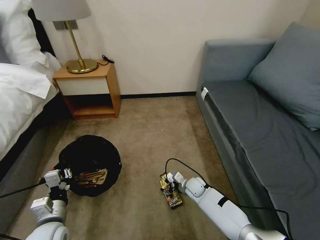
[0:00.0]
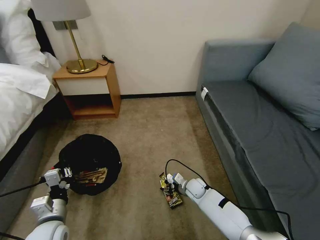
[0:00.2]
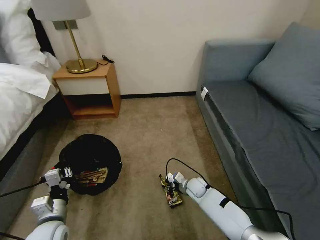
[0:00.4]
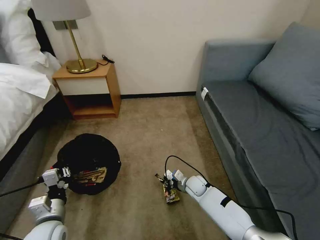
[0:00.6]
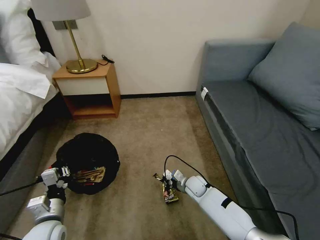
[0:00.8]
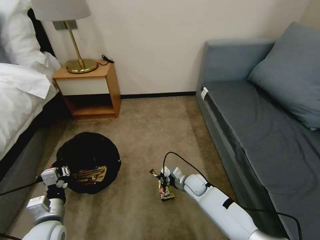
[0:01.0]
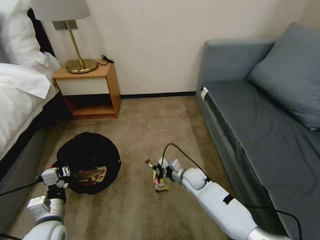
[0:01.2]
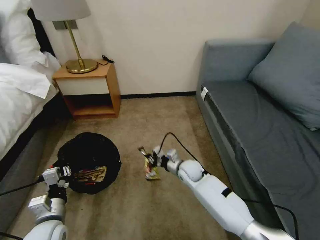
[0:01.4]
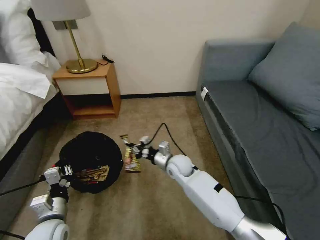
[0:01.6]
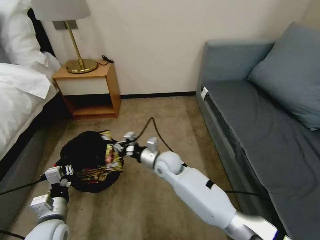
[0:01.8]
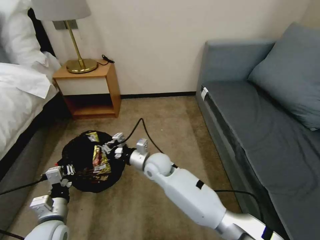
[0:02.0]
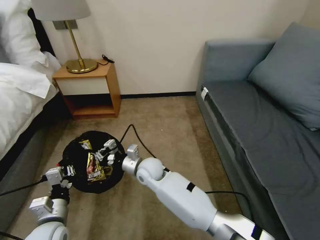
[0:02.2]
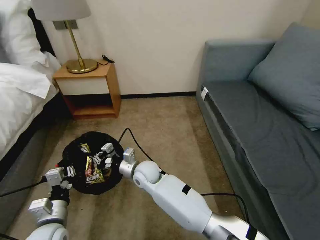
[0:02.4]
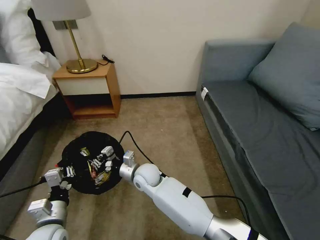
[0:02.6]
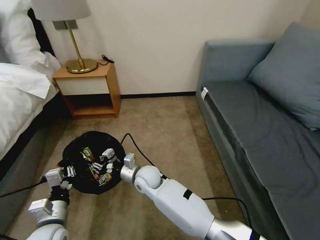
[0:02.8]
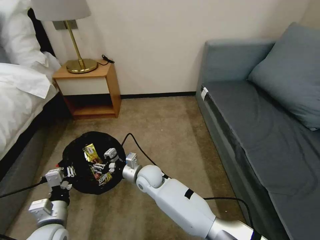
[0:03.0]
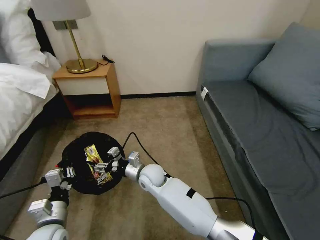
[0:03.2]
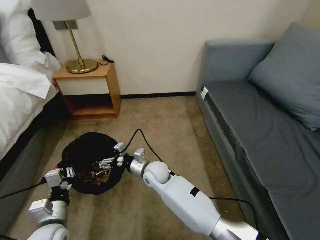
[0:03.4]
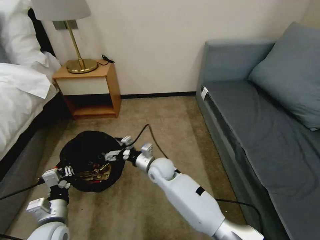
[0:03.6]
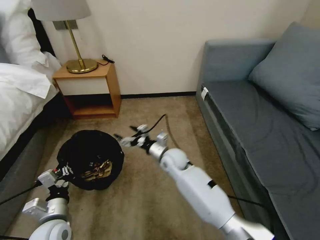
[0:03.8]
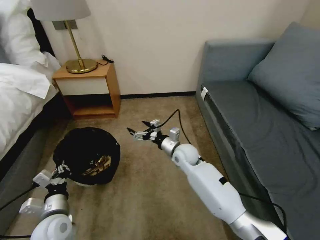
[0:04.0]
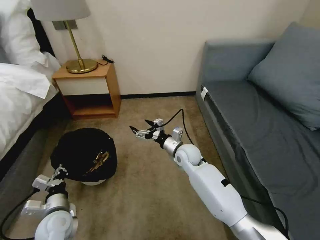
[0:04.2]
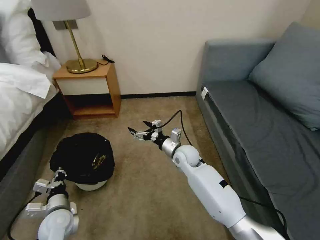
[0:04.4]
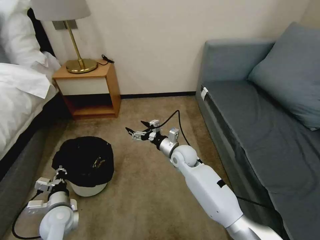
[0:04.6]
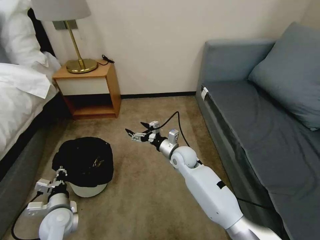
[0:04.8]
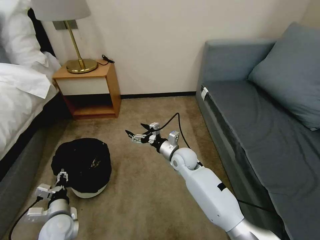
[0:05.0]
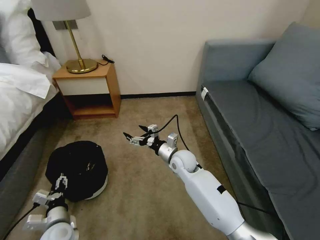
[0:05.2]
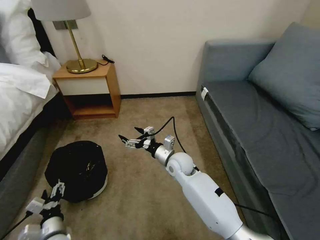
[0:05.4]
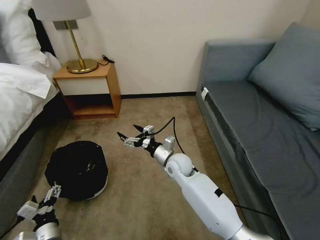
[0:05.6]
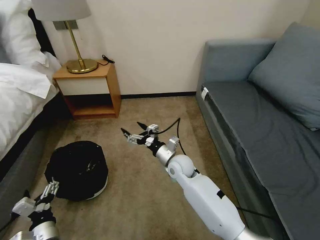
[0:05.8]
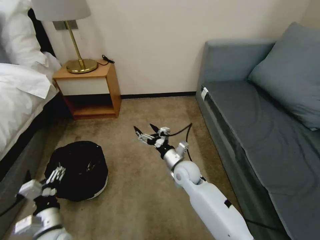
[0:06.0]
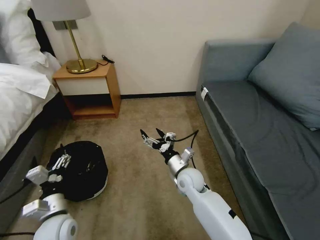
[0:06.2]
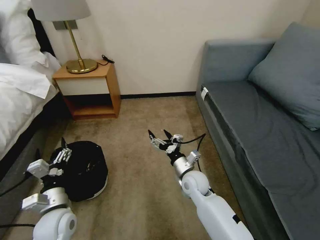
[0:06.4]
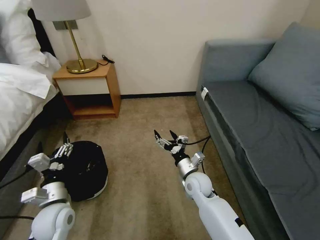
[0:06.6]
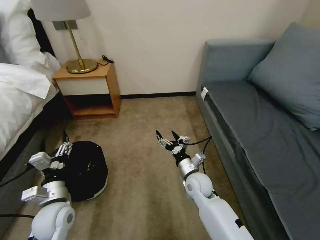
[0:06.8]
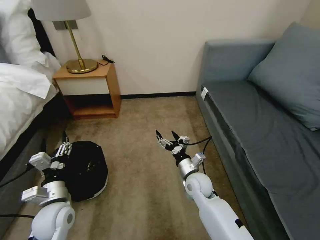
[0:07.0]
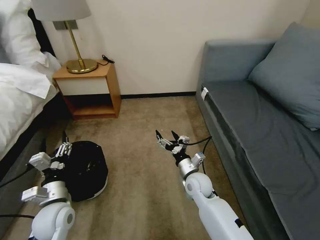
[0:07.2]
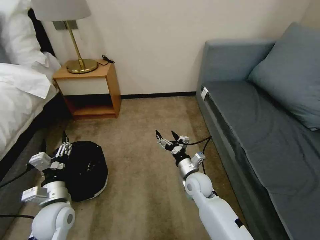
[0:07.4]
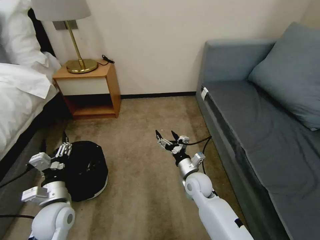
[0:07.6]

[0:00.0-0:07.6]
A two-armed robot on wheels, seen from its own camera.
Task of the whole recording: Pick up the trash bin, then pick up the garbage on the floor and place it into the trash bin.
0:00.0 to 0:01.6: The right gripper is displaced upward and to the left by approximately 20 cm, and closes up.
0:01.6 to 0:03.0: The right gripper travels to the left by about 10 cm, and opens up.
0:03.0 to 0:04.6: The left gripper moves downward and forward, roughly 10 cm. The right gripper shifts about 15 cm to the right and forward, and opens its fingers.
0:04.6 to 0:06.0: Both grippers travel together backward, about 5 cm. The left gripper opens up.
0:06.0 to 0:07.6: The left gripper is displaced forward by about 5 cm. The right gripper ends up approximately 5 cm from where it was.

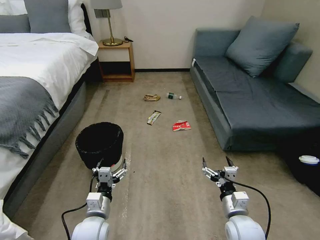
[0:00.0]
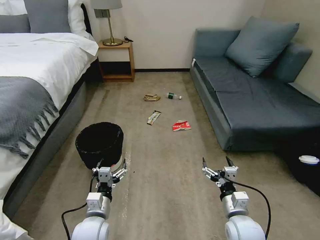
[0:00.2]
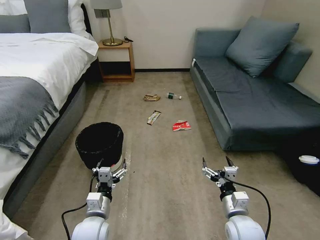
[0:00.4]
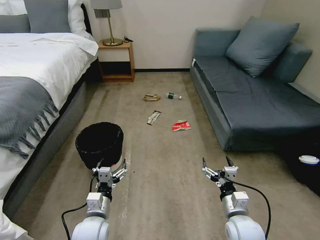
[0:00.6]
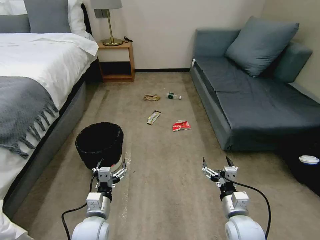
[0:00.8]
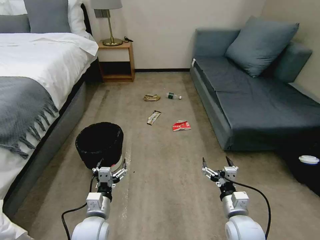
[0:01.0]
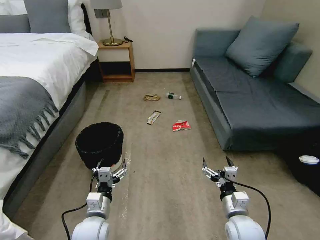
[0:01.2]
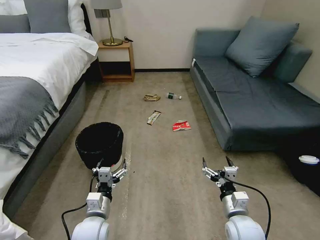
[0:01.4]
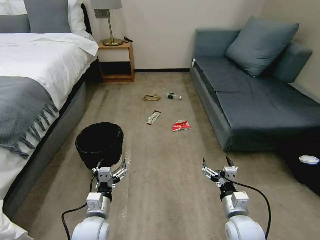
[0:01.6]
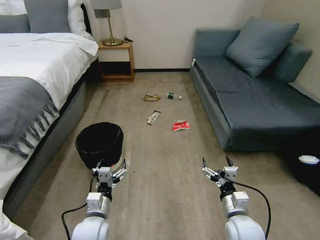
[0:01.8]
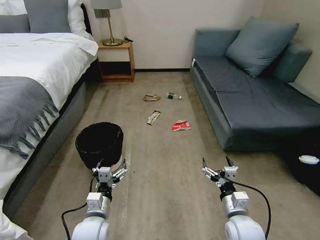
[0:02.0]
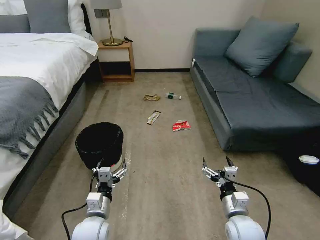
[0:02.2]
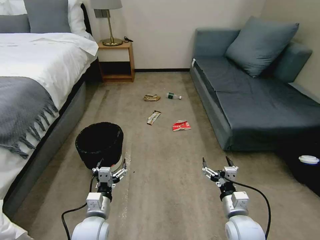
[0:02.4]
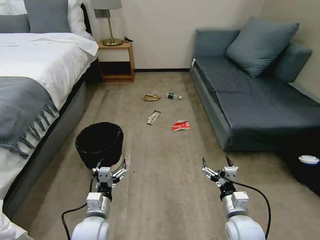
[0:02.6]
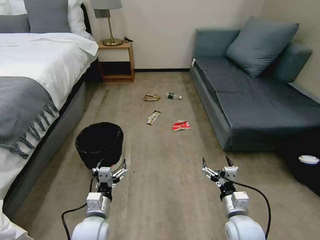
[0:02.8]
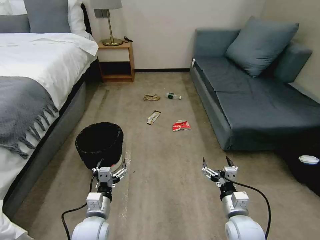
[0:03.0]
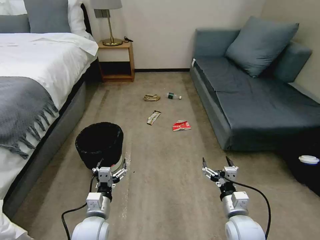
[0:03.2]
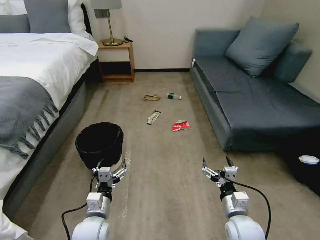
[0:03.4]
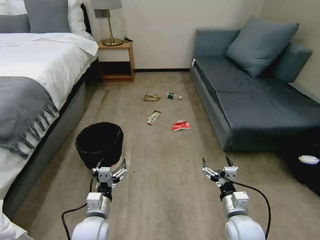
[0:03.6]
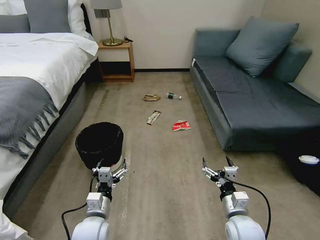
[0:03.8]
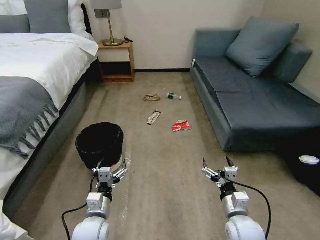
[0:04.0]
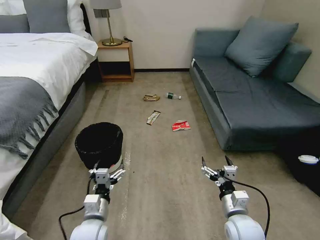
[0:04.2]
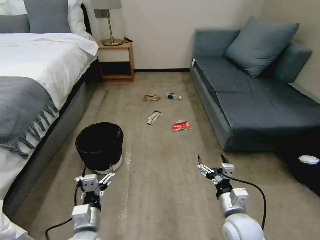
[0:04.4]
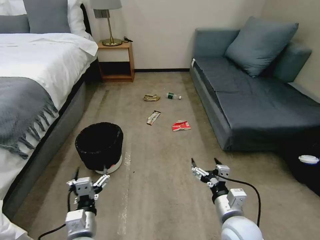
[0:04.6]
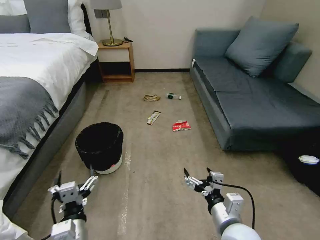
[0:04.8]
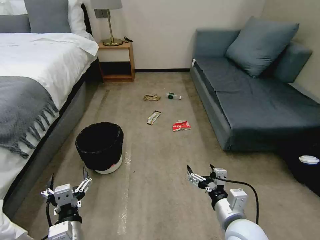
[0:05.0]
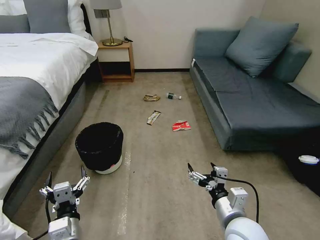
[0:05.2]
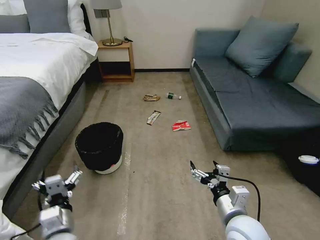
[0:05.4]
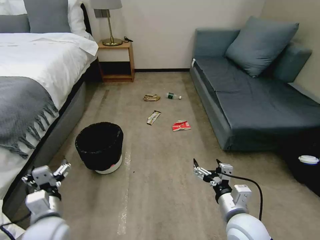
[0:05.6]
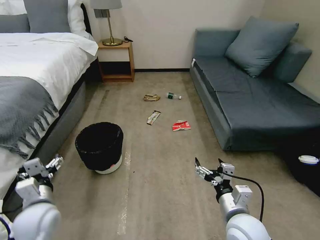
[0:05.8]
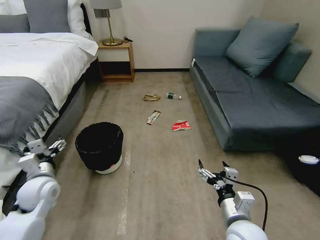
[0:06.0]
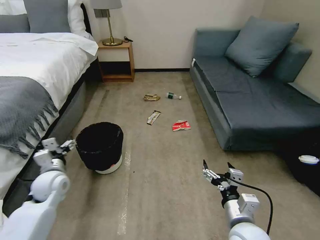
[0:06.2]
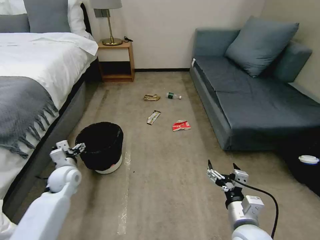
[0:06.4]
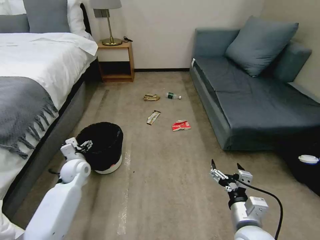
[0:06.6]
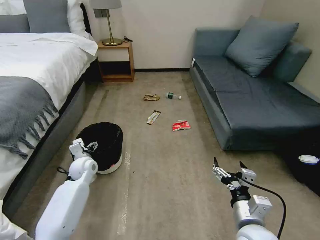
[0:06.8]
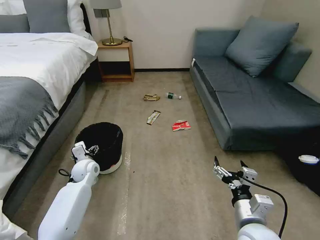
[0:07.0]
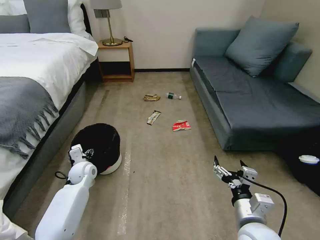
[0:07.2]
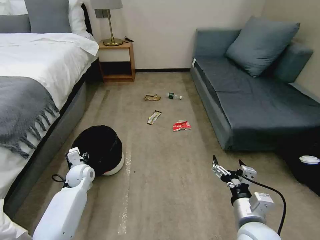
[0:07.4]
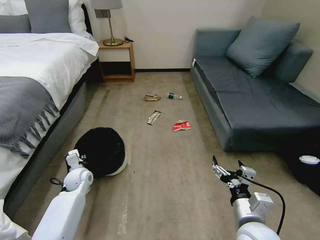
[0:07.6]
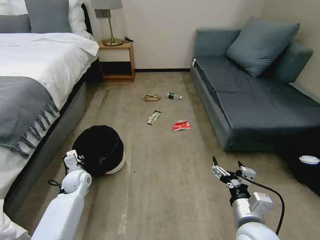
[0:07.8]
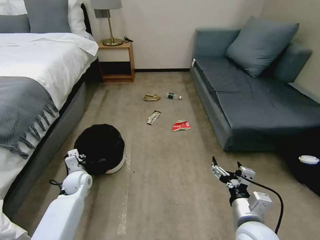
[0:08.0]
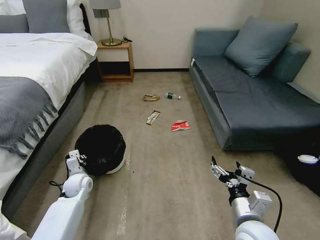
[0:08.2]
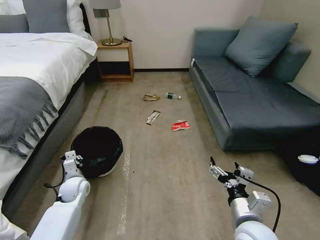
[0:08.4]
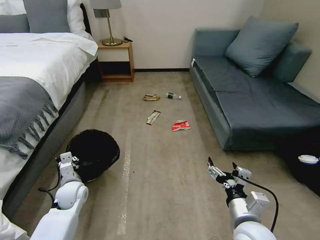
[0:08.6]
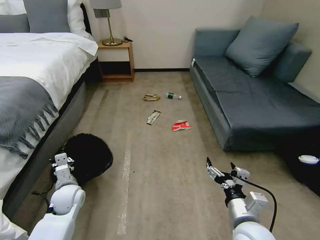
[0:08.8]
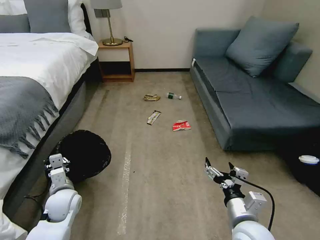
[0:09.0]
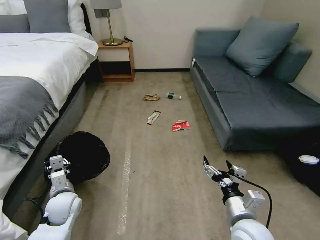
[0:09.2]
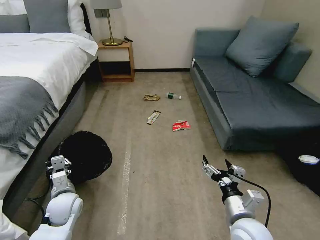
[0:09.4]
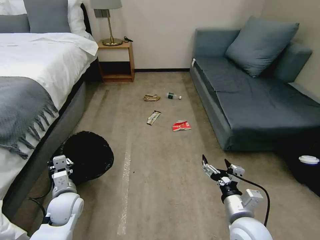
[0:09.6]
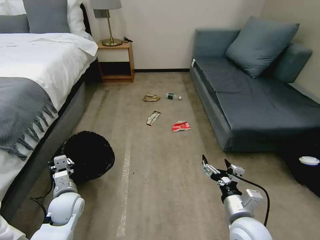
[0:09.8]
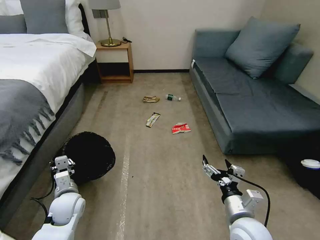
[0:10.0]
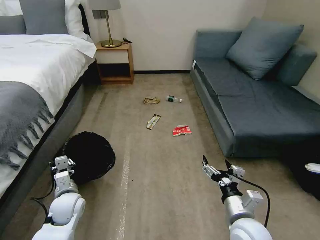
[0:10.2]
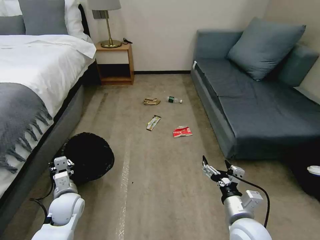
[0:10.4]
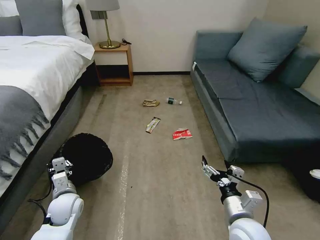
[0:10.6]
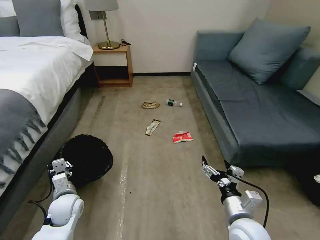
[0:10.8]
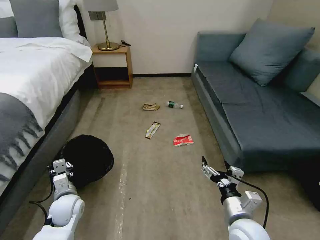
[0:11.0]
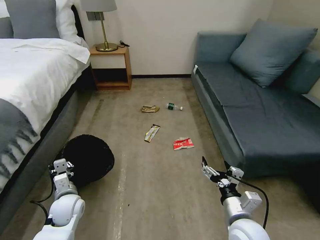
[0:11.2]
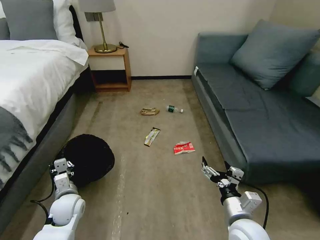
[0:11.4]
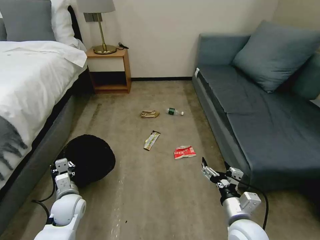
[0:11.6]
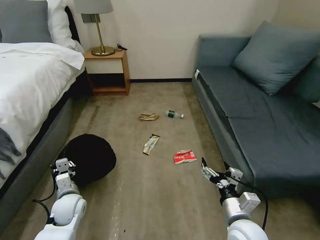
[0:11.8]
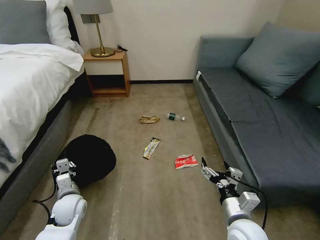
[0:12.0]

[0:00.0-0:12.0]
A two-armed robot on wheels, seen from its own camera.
Task of the whole recording: Pick up the trash bin, then pick up the garbage on the floor and place it into the trash bin.
0:01.6 to 0:03.0: Neither gripper changes place.
0:03.0 to 0:04.4: The left gripper shifts by about 5 cm.
0:04.4 to 0:06.0: The left gripper heads to the left, forward and upward, covering some 20 cm.
0:06.0 to 0:07.6: The left gripper shifts some 15 cm downward and forward, and closes up.
0:07.6 to 0:09.0: The left gripper travels backward by some 10 cm, and closes up.
0:09.0 to 0:10.4: The grippers stay close to where they were, moving slightly.

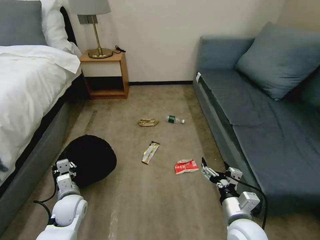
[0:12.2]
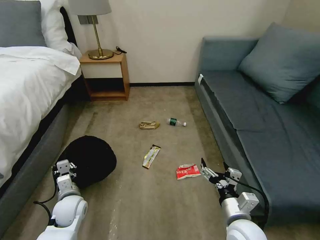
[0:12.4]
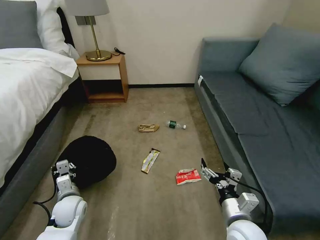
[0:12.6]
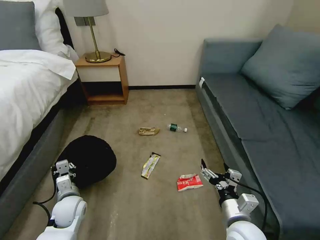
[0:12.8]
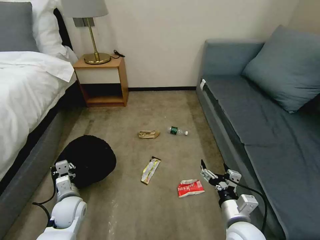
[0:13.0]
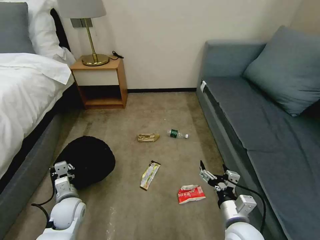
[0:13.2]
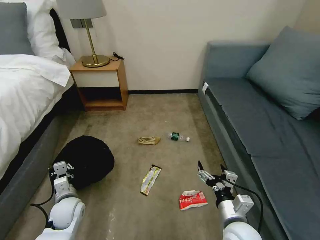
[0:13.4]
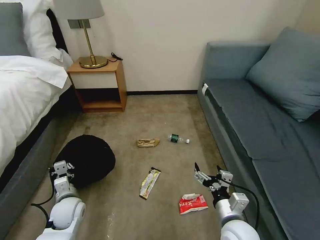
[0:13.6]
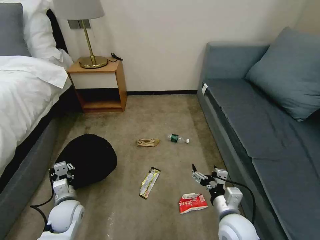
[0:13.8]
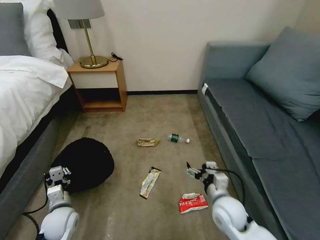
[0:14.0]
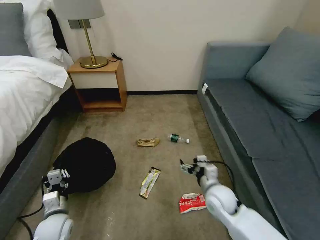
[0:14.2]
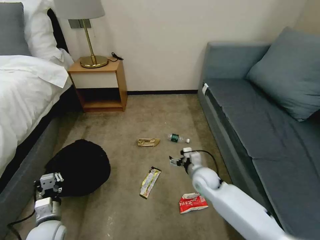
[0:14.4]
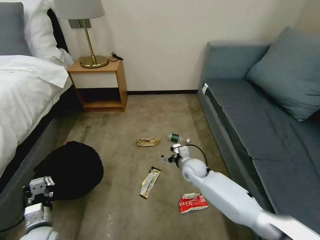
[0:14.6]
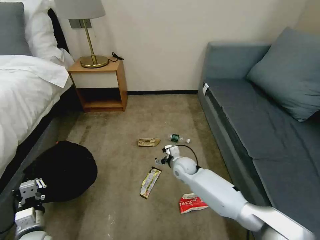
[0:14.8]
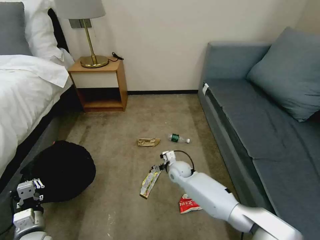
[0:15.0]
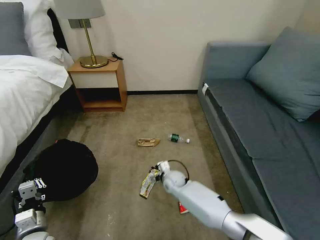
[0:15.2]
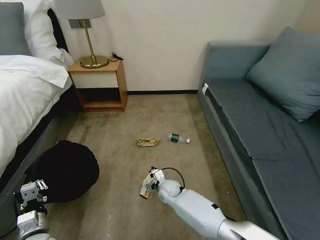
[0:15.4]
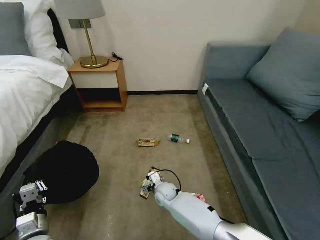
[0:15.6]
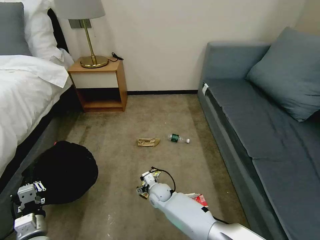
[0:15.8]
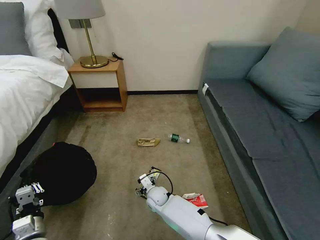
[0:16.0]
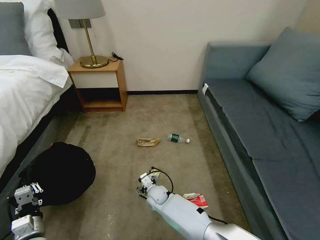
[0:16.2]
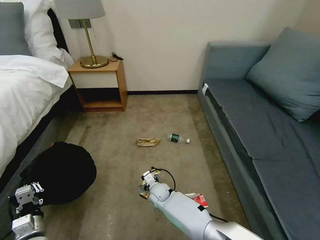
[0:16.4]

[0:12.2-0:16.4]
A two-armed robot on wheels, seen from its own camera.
Task of the whole recording: Pick up the trash bin, then pick up the garbage on the floor and place it into the trash bin.
0:13.6 to 0:15.0: The right gripper moves forward, to the left and downward, roughly 30 cm; the left gripper is displaced backward and to the left by approximately 10 cm.
0:15.0 to 0:16.4: The right gripper goes about 15 cm to the left, downward and backward.
